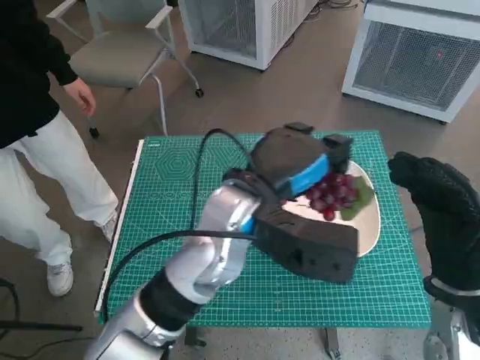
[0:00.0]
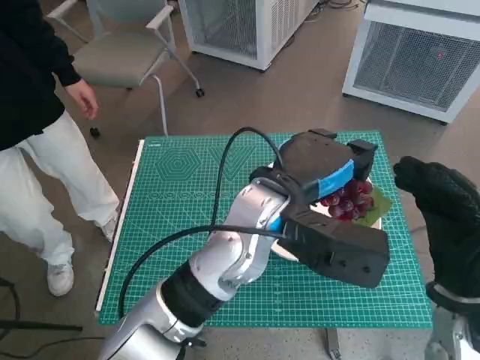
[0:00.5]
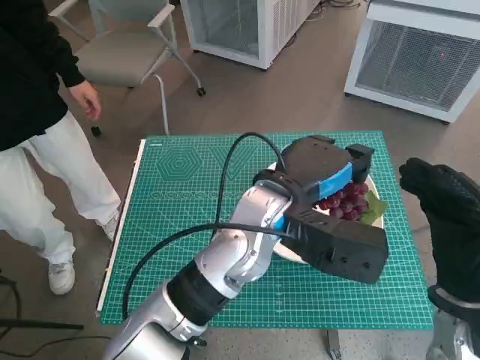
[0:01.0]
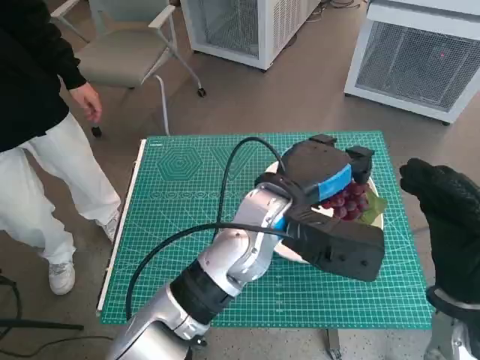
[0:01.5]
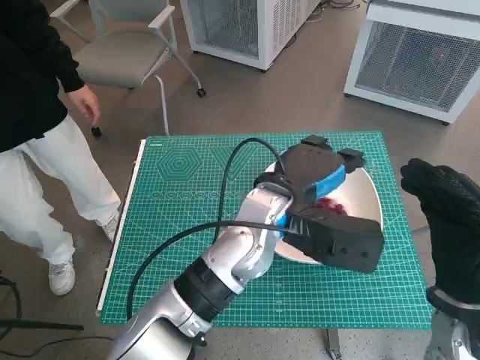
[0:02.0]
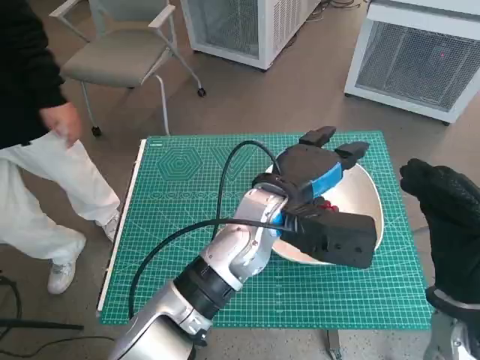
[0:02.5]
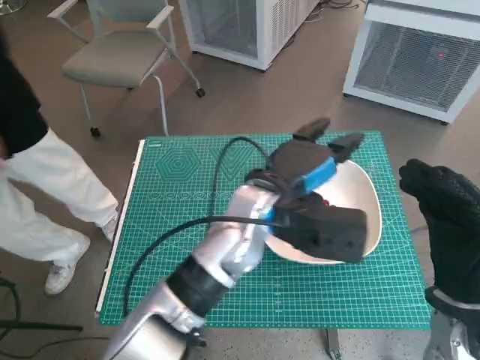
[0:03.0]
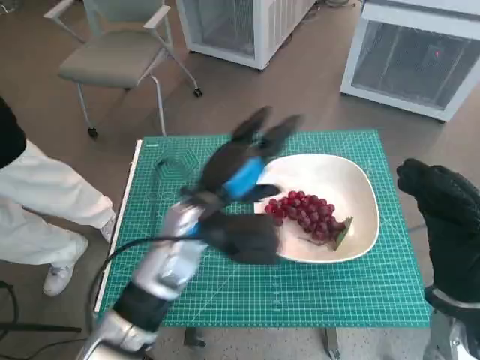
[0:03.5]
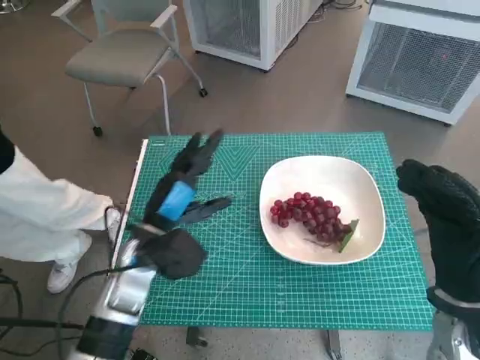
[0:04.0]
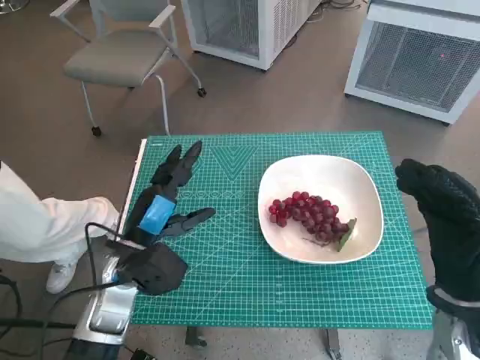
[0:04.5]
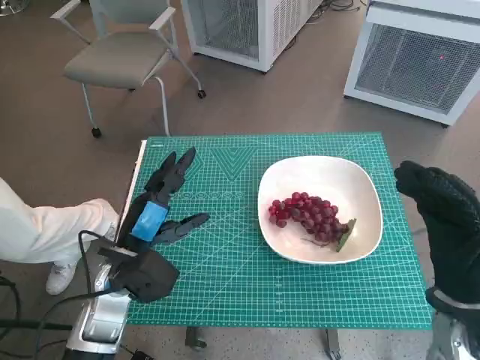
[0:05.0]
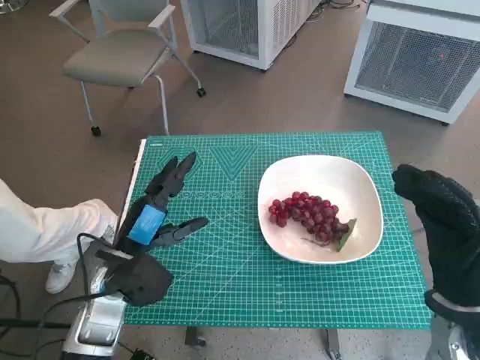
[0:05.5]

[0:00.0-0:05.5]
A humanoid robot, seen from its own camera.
Task of the whole recording: Pick up the grapes and put them on the plate.
Step, 0:00.0 to 0:02.0: Place the grapes in the plate with left hand.
0:00.0 to 0:02.0: The left hand changes place by roughly 5 cm.
0:02.0 to 0:03.5: The left hand goes about 10 cm to the left.
0:03.5 to 0:05.5: The left hand heads to the left, downward and backward, covering roughly 15 cm.

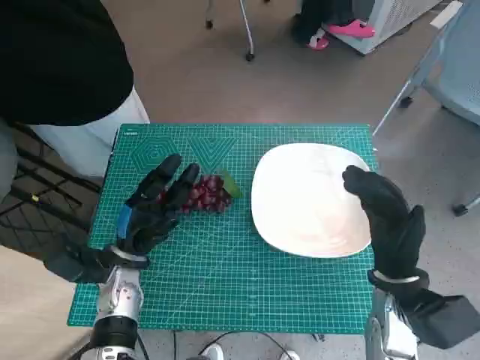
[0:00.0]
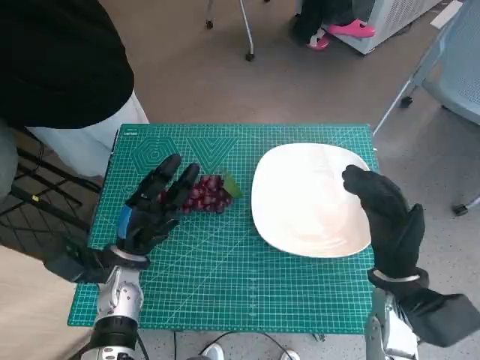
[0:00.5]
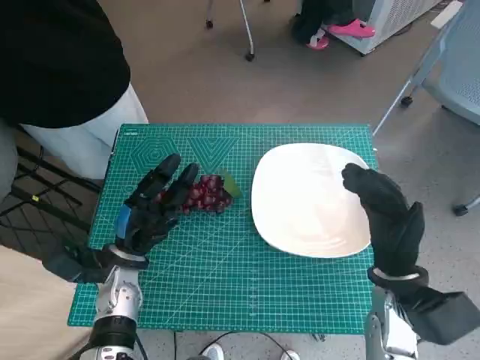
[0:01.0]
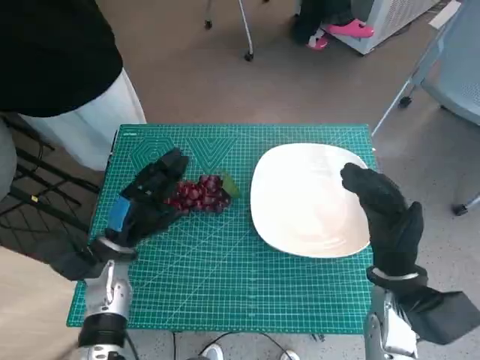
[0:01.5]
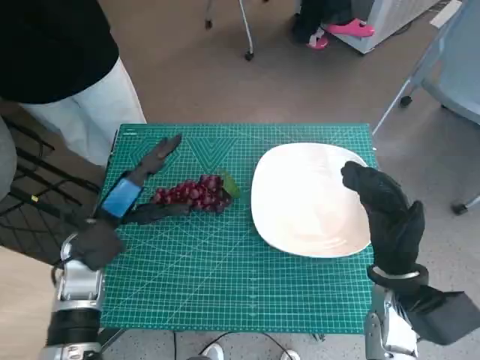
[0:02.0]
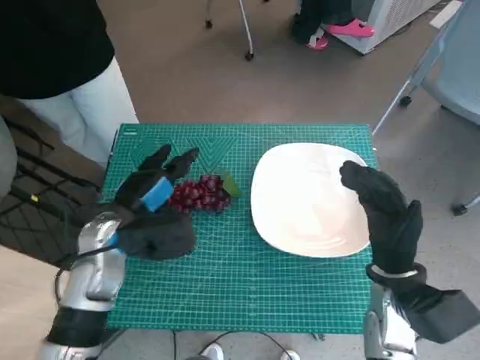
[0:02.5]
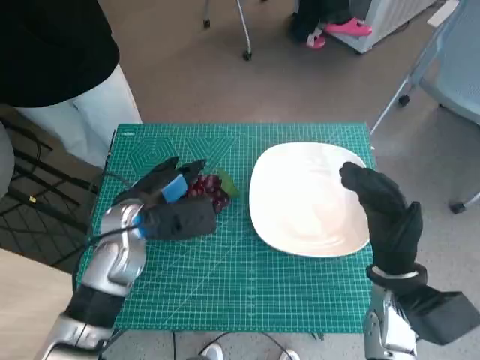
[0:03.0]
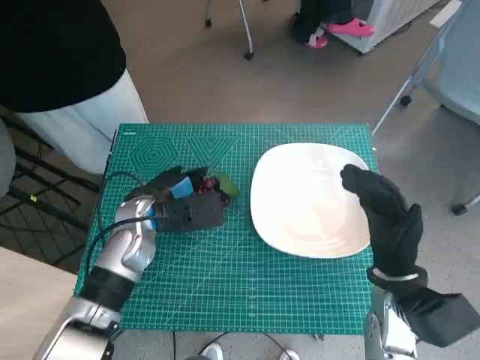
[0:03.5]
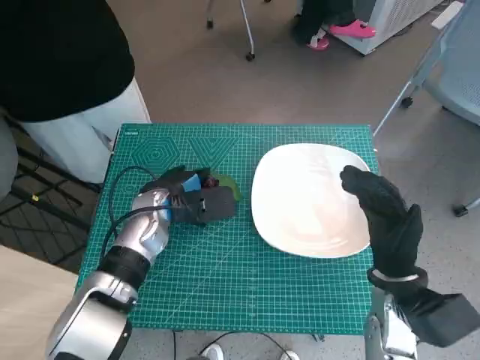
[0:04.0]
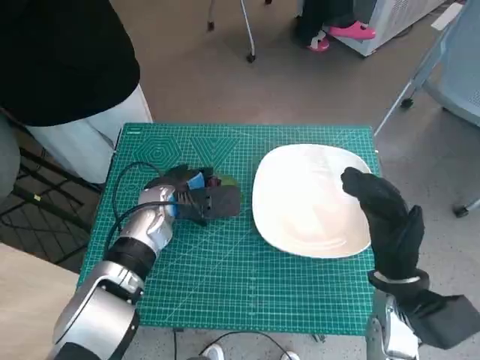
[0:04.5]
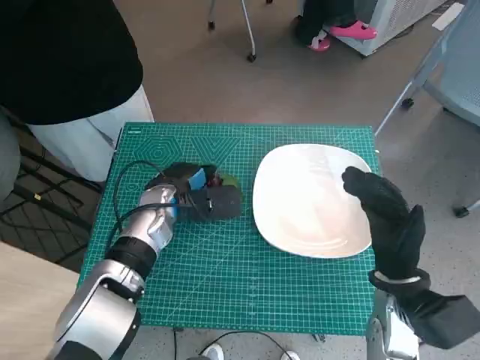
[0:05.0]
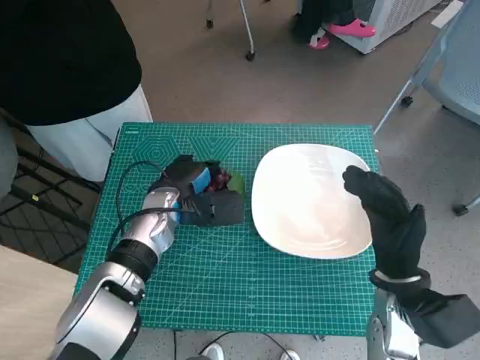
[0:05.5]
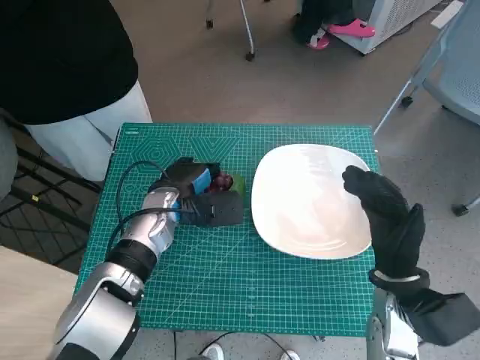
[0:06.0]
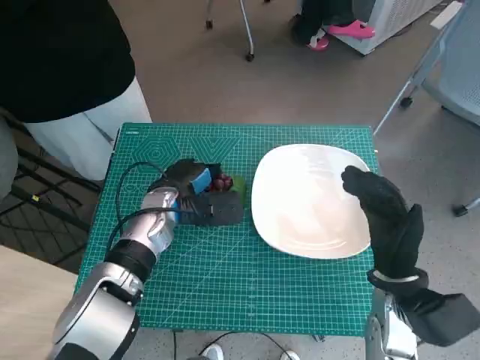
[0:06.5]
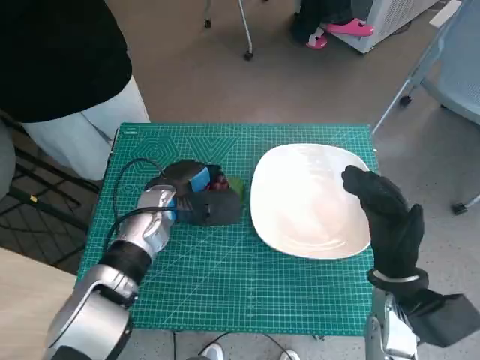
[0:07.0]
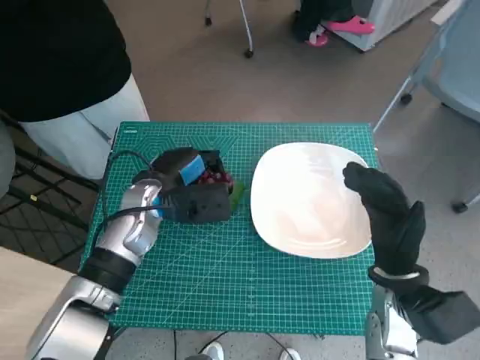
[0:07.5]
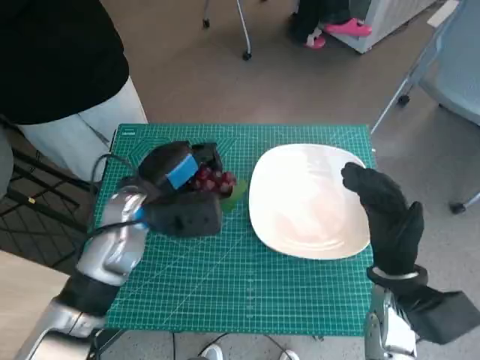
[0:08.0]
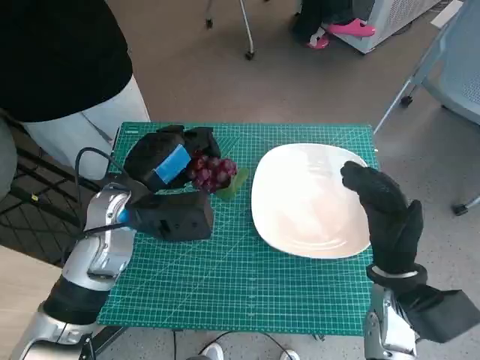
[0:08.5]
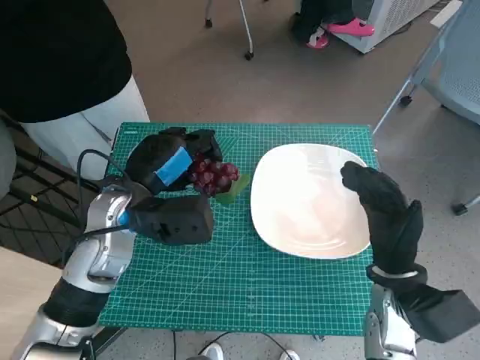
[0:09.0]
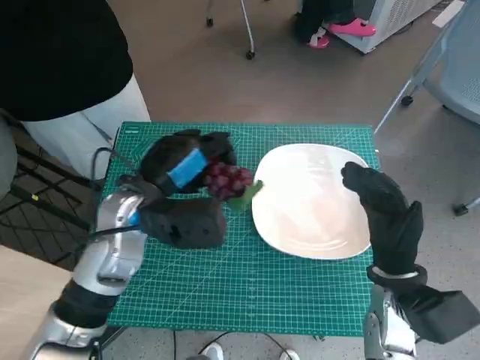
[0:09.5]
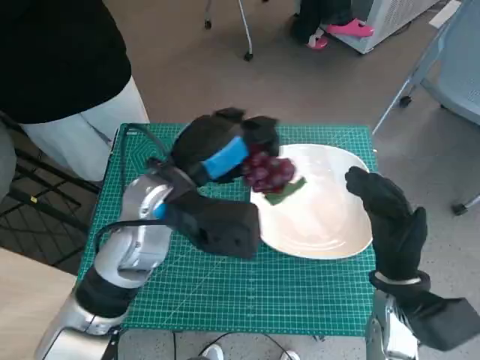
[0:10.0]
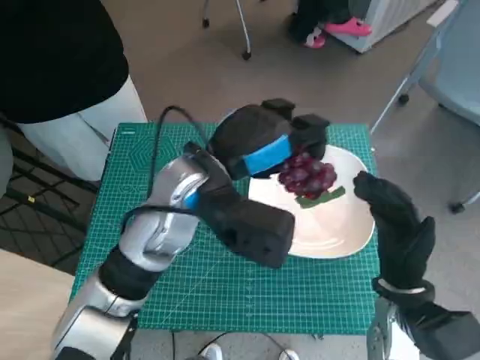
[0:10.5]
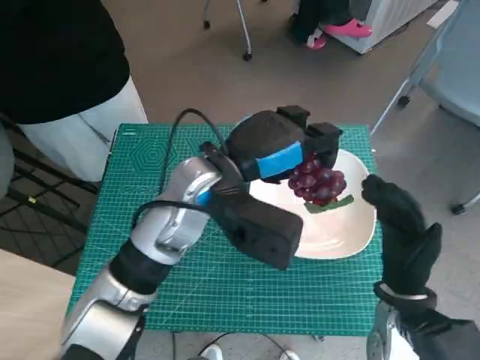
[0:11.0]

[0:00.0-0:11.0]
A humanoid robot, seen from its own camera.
Task of the whole recording: Pick up the grapes and put them on the plate.
Step, 0:00.0 to 0:05.5: Grasp the grapes with left hand.
0:02.0 to 0:03.5: The left hand travels to the right by about 5 cm.
0:03.5 to 0:07.5: The hands move only a little.
0:07.5 to 0:09.0: The left hand is displaced upward by about 5 cm.
0:09.0 to 0:11.0: The left hand is displaced to the right by roughly 10 cm.

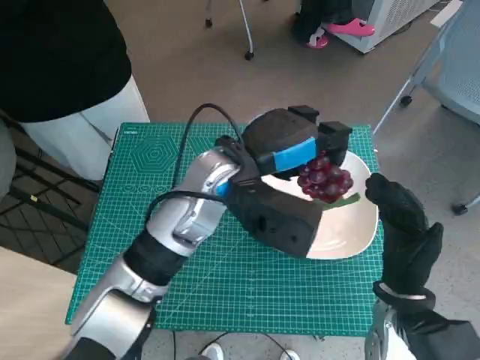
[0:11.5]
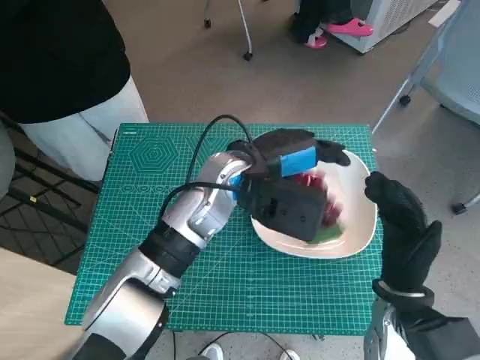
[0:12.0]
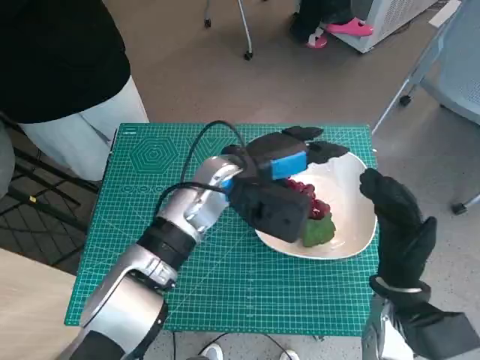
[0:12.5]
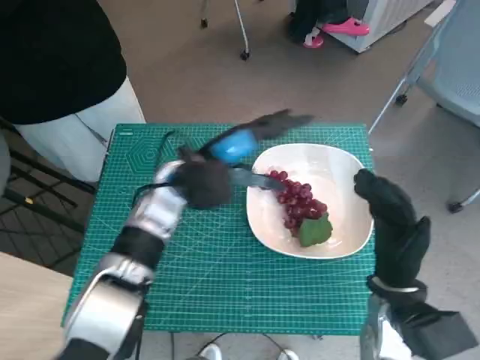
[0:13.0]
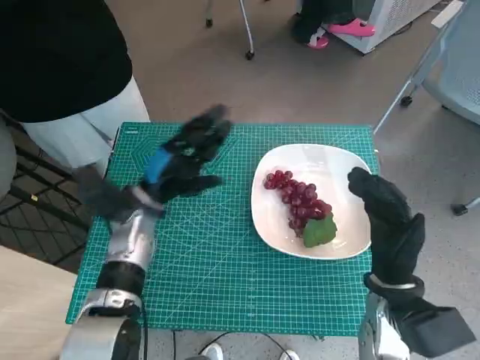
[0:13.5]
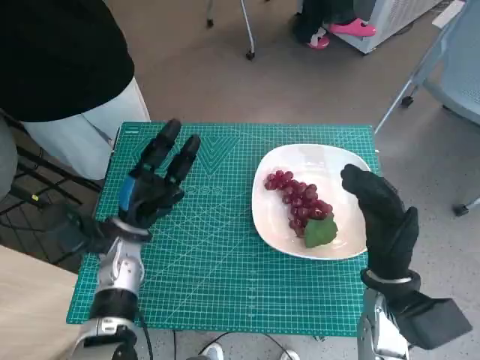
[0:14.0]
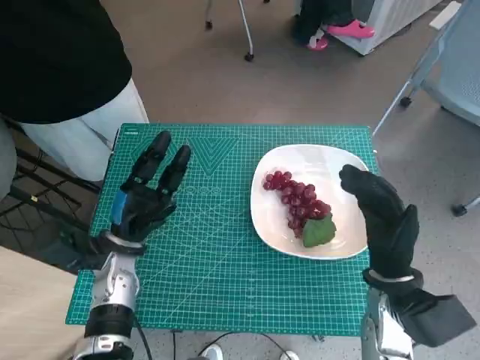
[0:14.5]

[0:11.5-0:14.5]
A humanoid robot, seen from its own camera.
Task of the whole recording: Pick up the grapes and put them on the plate.
0:11.5 to 0:13.0: The left hand goes about 10 cm to the left and downward.
0:13.0 to 0:14.5: The left hand moves to the left, downward and backward, some 20 cm.

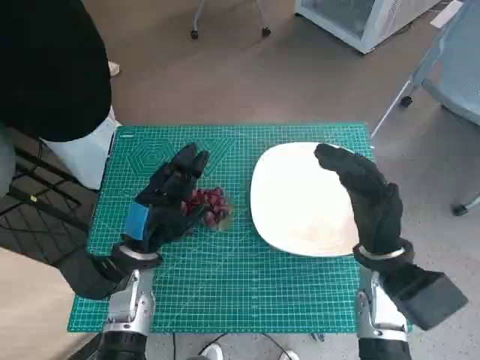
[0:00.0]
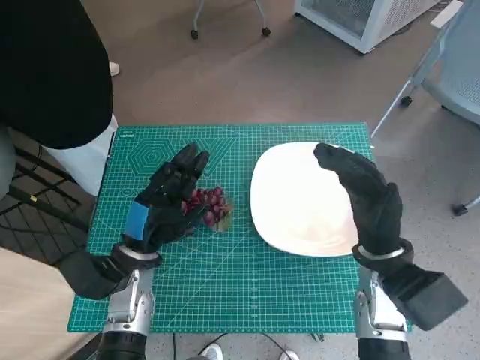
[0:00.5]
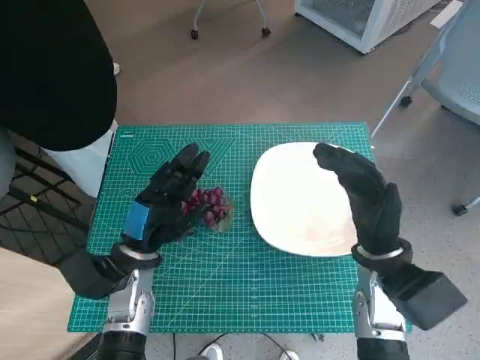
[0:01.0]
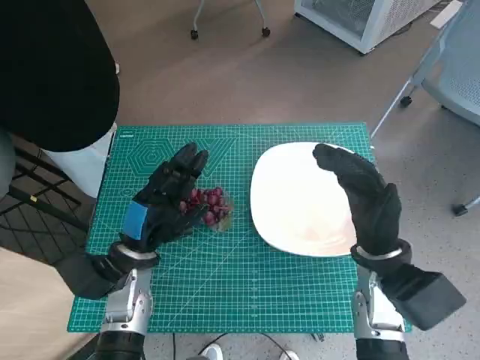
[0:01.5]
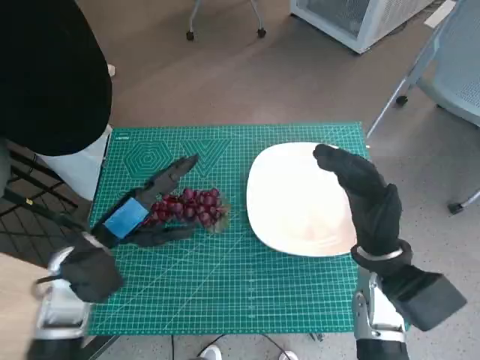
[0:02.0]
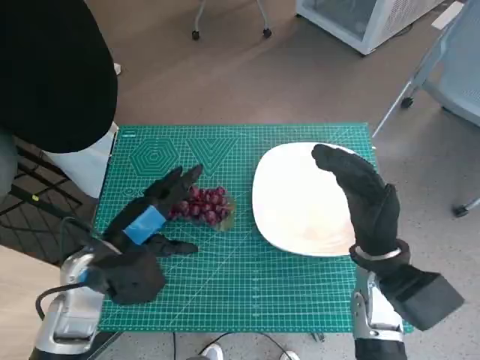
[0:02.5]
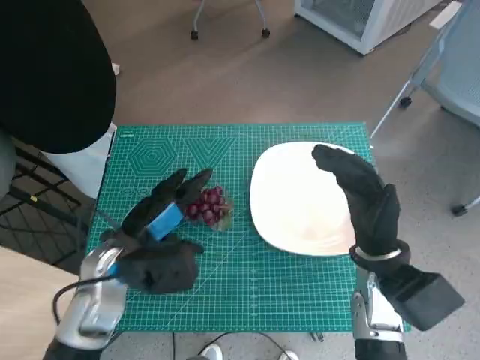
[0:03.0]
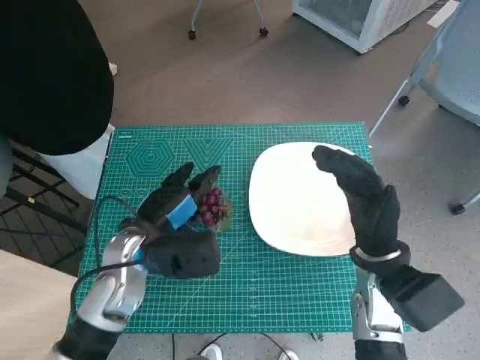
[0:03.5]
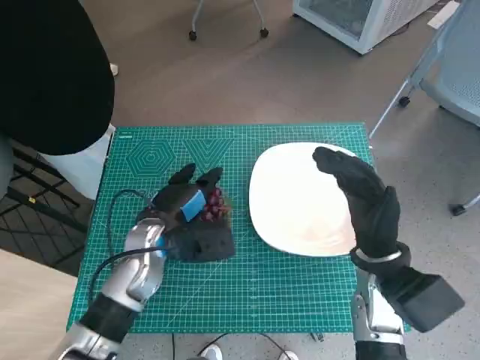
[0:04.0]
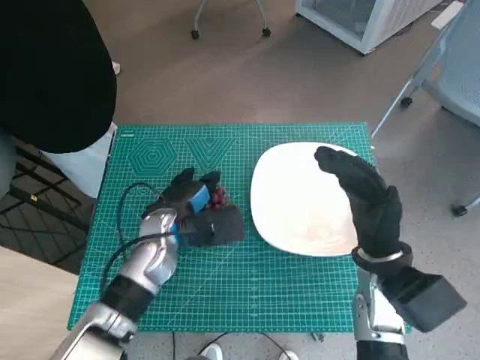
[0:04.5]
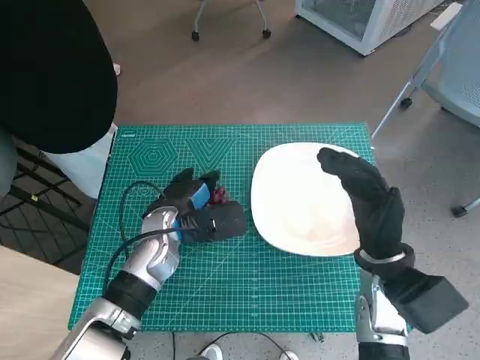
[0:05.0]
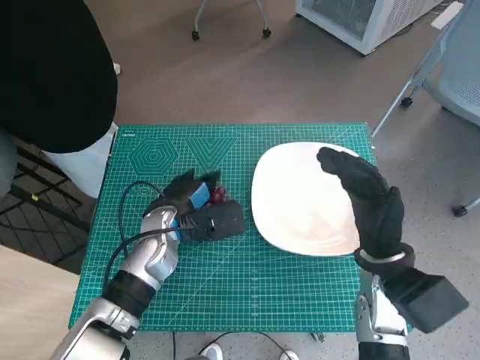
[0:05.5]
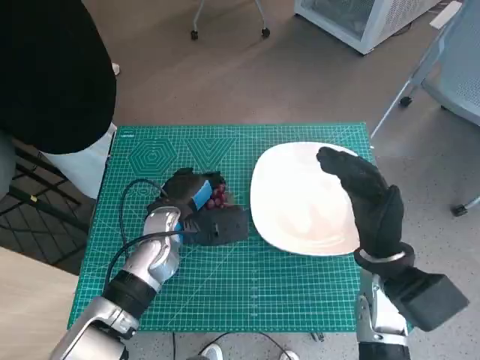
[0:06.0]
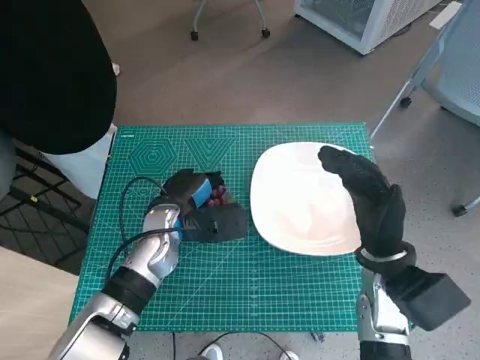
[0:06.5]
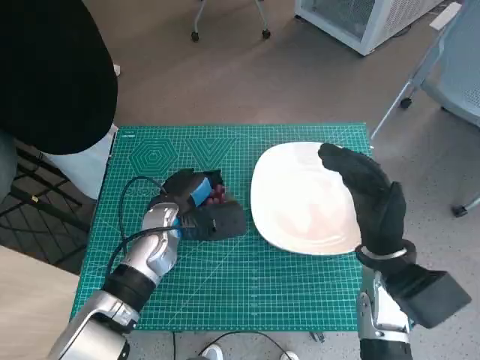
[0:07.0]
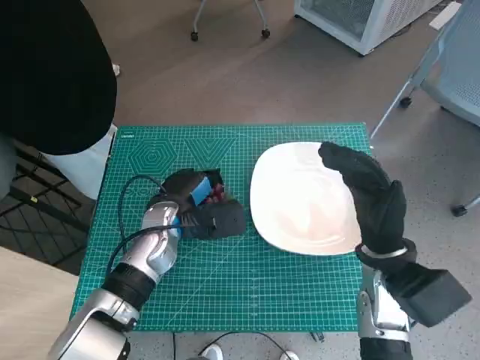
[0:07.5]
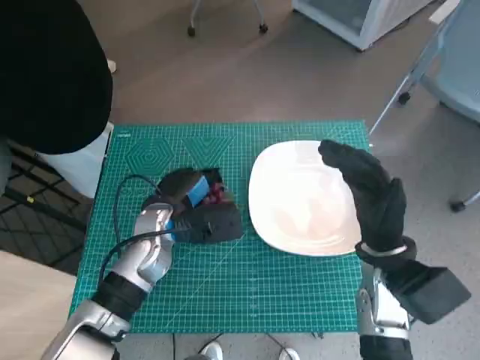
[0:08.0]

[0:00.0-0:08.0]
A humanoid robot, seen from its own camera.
Task of the whole recording: Pick up the grapes and put them on the plate.
Step, 0:00.0 to 0:05.5: Grasp the grapes with left hand.
0:02.0 to 0:04.0: The left hand moves to the right, roughly 5 cm.
0:04.0 to 0:06.0: The hands stay close to where they were, moving slightly.
0:06.0 to 0:08.0: Both hands stay about where they are.
